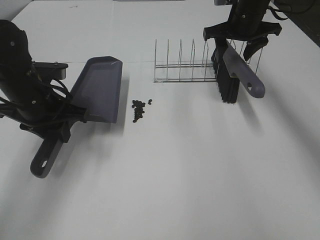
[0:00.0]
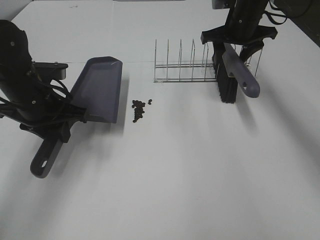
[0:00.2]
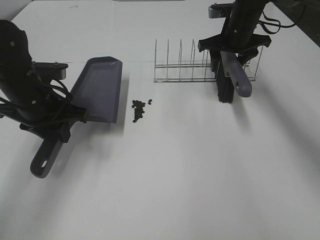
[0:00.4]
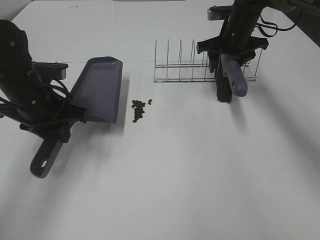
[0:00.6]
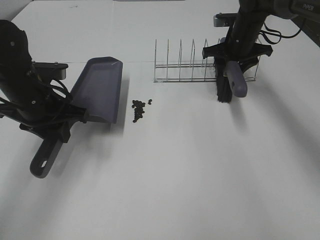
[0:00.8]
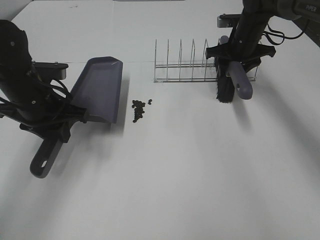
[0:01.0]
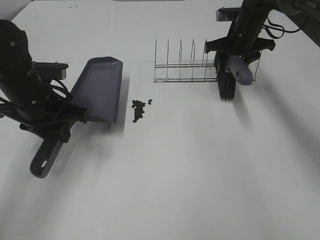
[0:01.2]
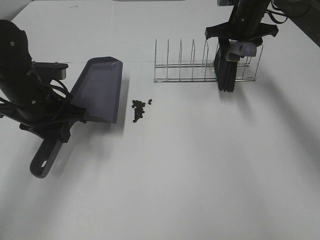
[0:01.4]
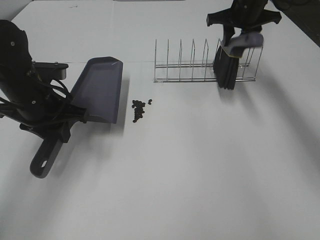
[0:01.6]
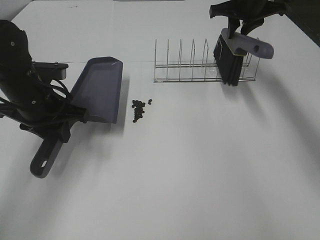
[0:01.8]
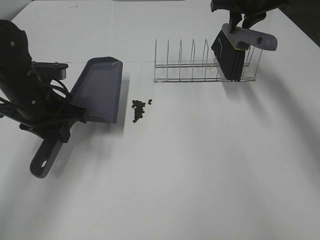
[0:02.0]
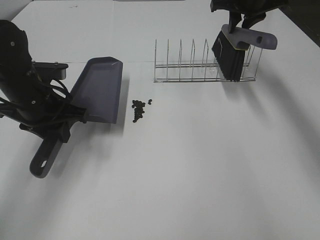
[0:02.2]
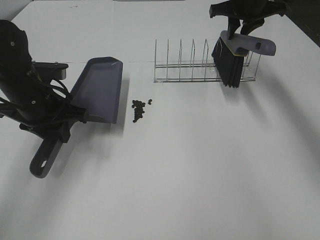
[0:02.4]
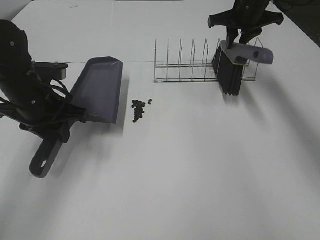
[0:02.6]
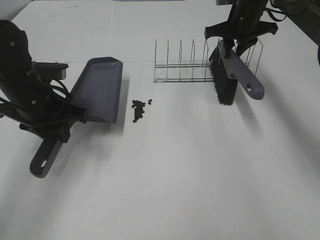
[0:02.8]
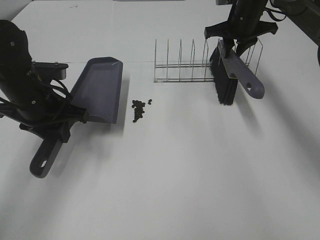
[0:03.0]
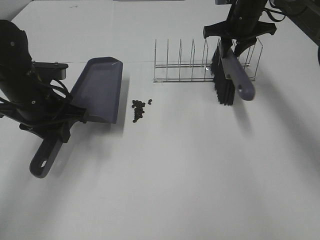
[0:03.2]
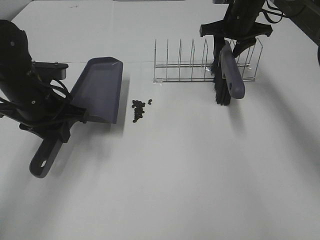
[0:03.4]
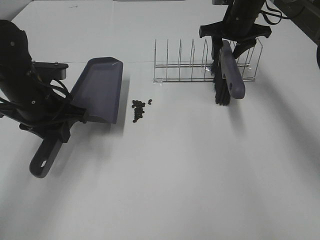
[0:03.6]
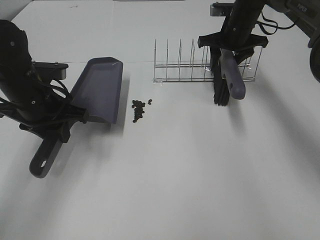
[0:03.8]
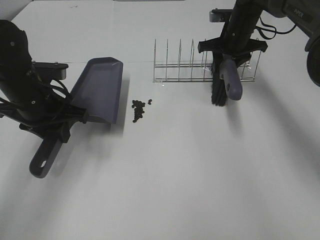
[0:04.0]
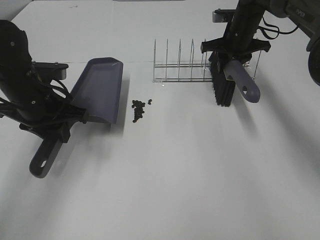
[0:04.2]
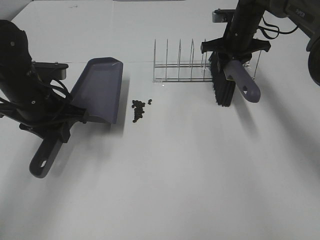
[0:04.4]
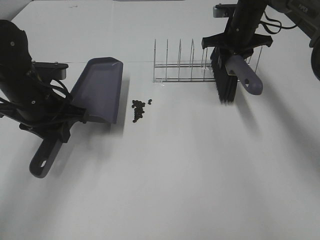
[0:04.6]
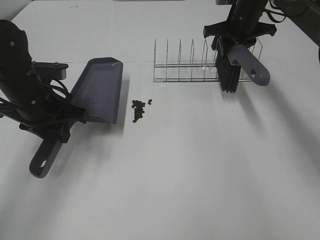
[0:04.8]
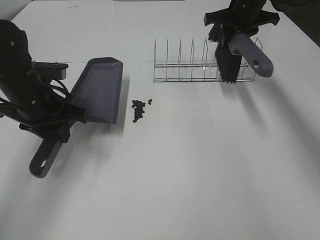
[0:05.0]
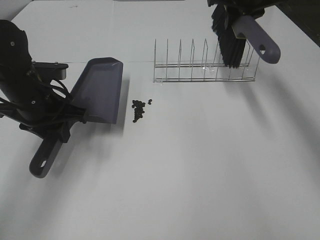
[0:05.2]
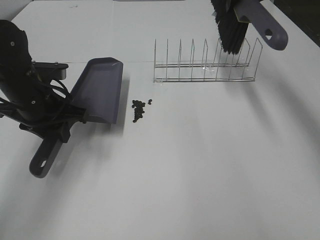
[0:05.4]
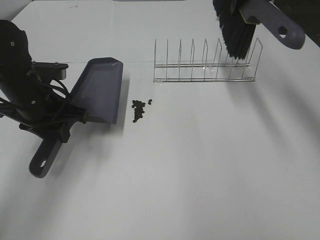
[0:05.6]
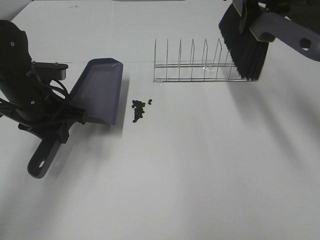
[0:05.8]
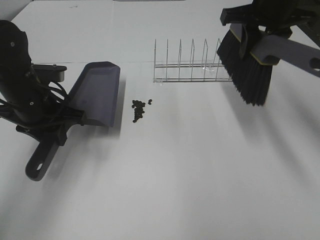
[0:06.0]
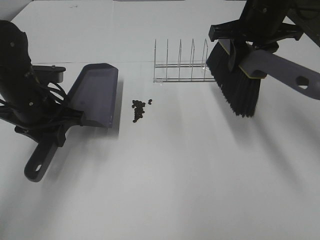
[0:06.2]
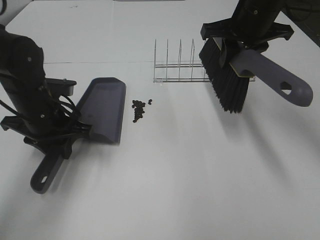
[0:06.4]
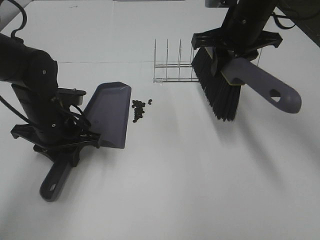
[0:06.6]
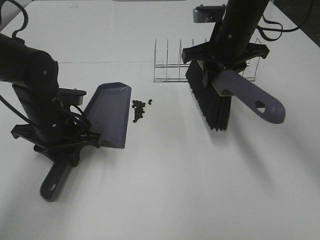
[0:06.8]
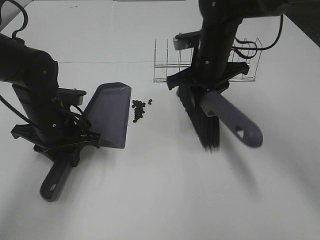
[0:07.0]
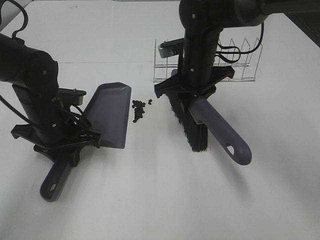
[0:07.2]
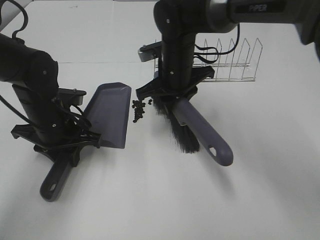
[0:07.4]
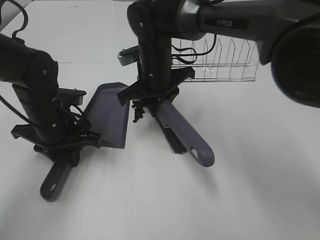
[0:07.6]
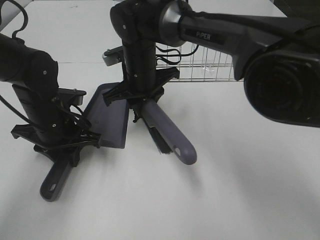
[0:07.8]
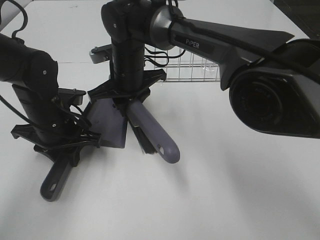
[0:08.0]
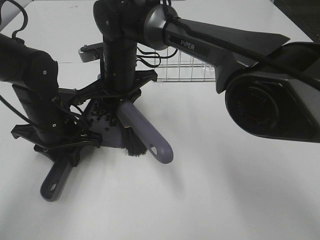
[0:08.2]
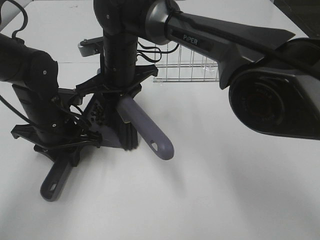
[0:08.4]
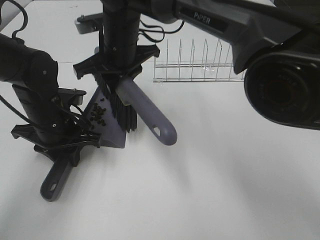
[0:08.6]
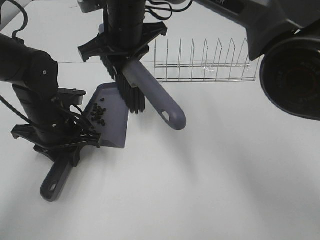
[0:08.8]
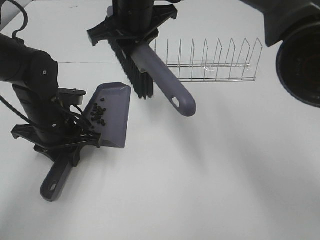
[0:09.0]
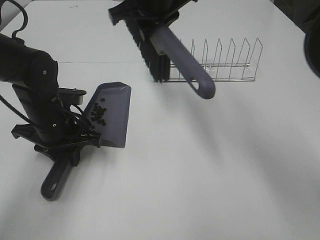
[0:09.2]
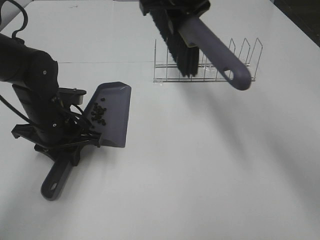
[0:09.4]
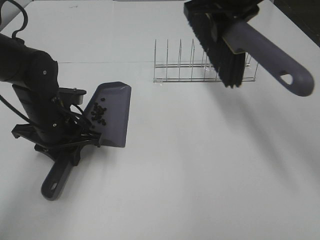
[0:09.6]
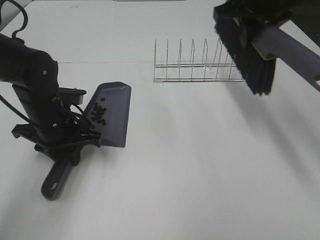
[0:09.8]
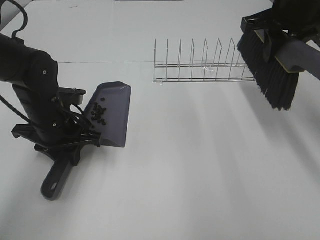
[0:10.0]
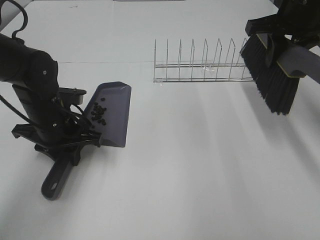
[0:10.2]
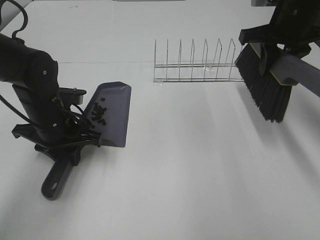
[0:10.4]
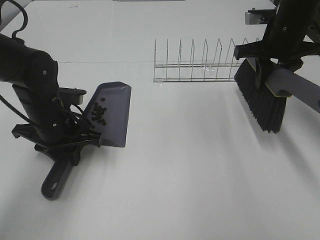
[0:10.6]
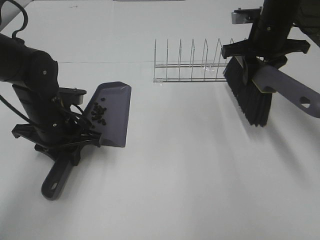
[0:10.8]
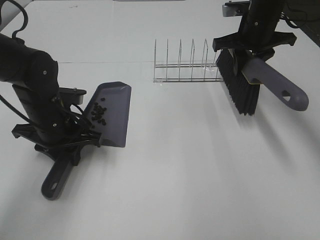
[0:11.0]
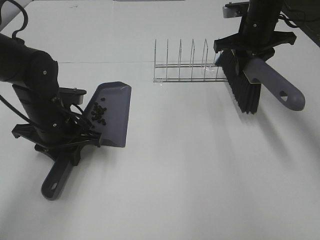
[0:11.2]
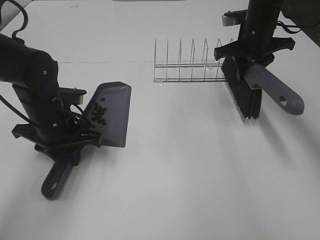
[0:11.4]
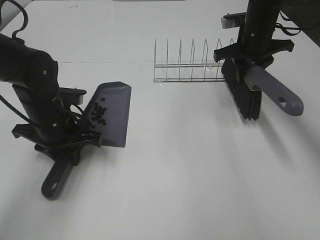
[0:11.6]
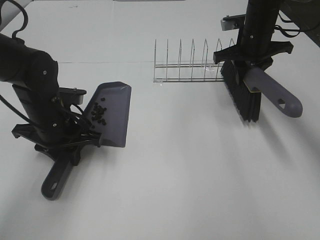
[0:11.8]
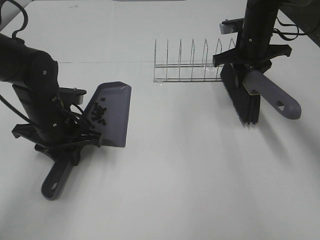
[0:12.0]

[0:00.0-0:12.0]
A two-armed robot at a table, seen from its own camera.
Task of the whole recording: Sweep Coffee Bean.
Step, 0:00.0 to 0:04.2: Right hand:grab the broom.
Step, 0:04.4 to 0:08.6: Right hand:sweep the coffee beans into the dustpan.
0:00.0 to 0:01.6: The right gripper reaches roughly 5 cm downward, then returns, and closes its fingers.
0:01.6 to 0:03.0: There are only small adjustments of the grippers.
0:03.0 to 0:04.4: The right gripper opens, then closes again.
0:04.4 to 0:06.0: The right gripper heads backward and upward, covering about 15 cm.
0:06.0 to 0:07.6: The left gripper shifts by some 5 cm, while the right gripper goes approximately 25 cm to the left and downward.
0:07.6 to 0:09.0: The right gripper moves upward, roughly 10 cm.
0:09.0 to 0:10.4: The right gripper goes some 25 cm to the right.
0:10.4 to 0:12.0: The right gripper moves downward and forward, some 10 cm.

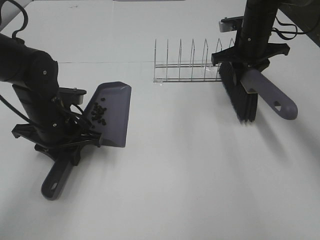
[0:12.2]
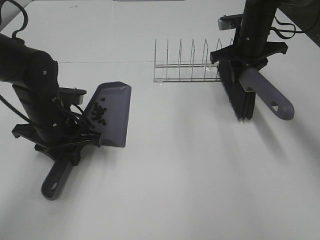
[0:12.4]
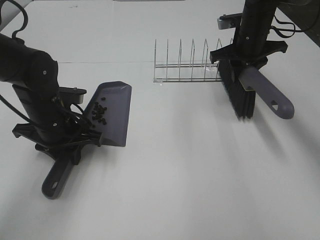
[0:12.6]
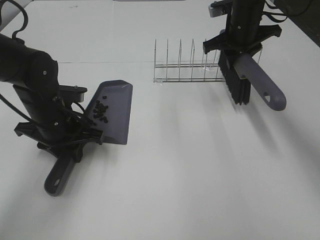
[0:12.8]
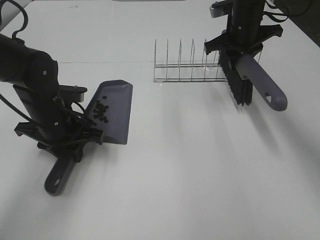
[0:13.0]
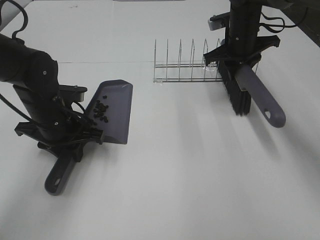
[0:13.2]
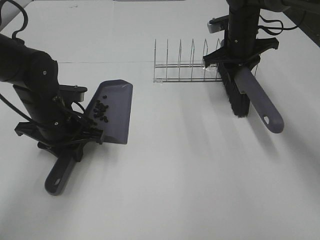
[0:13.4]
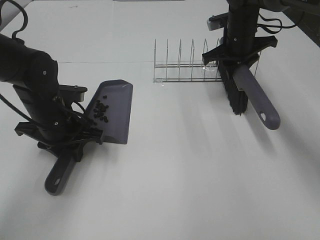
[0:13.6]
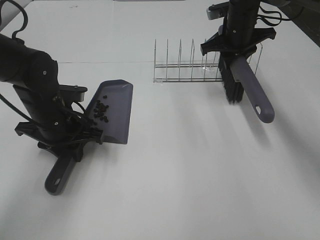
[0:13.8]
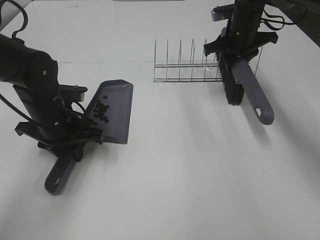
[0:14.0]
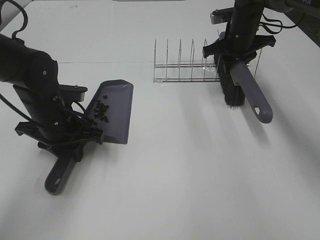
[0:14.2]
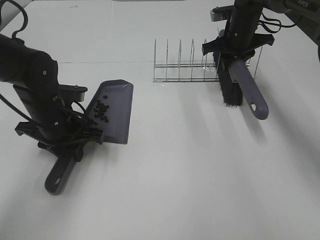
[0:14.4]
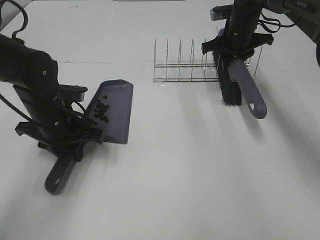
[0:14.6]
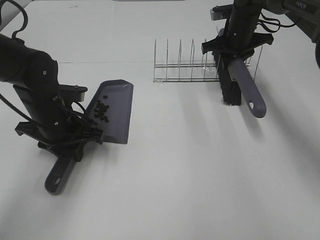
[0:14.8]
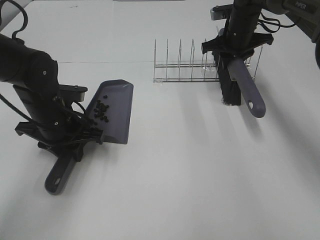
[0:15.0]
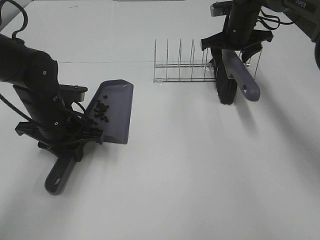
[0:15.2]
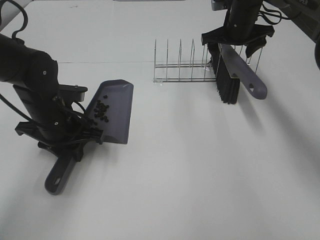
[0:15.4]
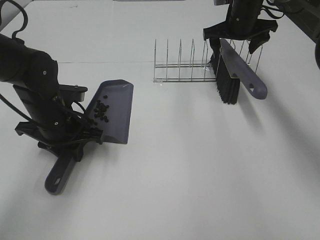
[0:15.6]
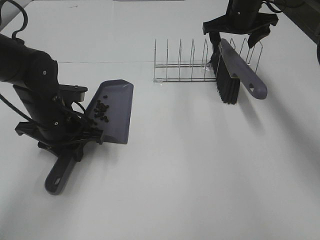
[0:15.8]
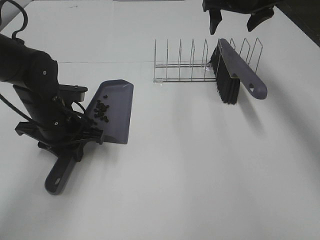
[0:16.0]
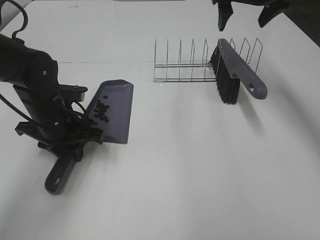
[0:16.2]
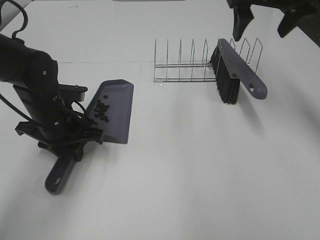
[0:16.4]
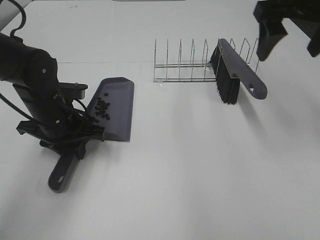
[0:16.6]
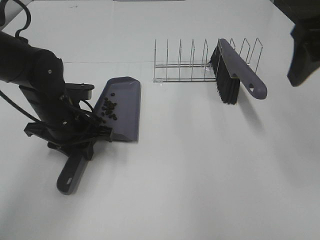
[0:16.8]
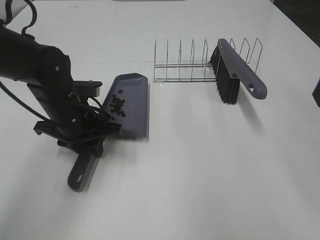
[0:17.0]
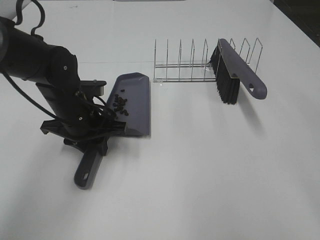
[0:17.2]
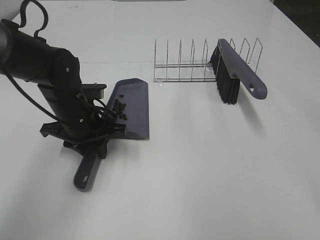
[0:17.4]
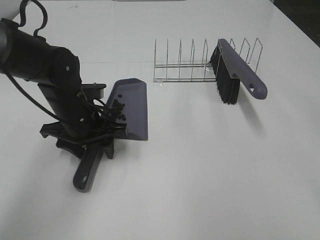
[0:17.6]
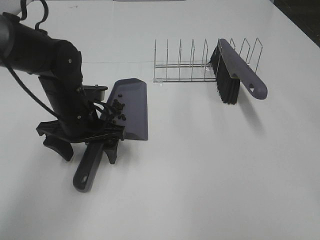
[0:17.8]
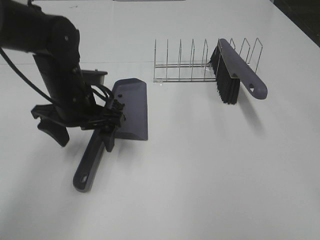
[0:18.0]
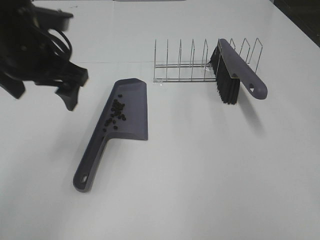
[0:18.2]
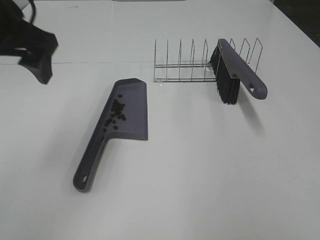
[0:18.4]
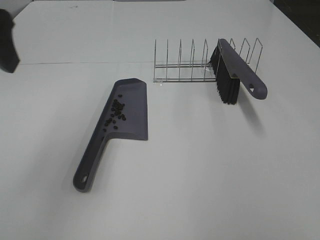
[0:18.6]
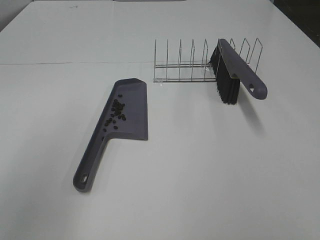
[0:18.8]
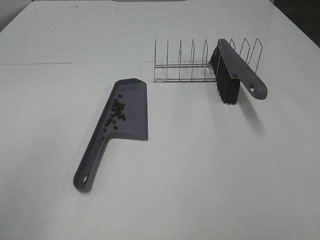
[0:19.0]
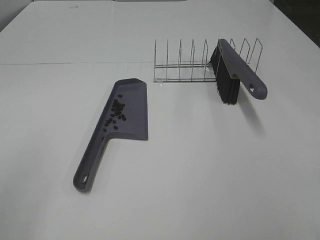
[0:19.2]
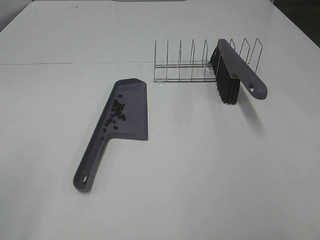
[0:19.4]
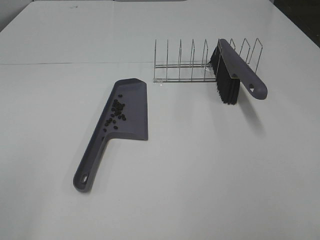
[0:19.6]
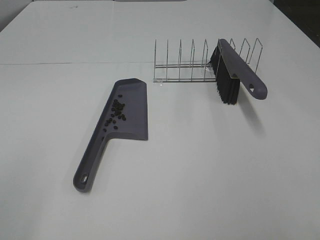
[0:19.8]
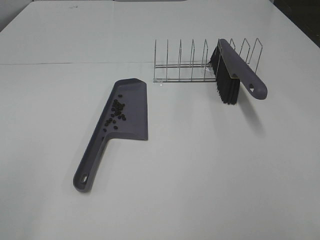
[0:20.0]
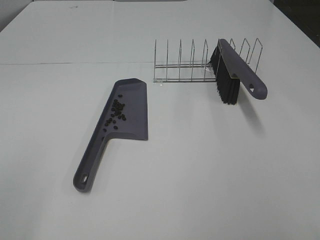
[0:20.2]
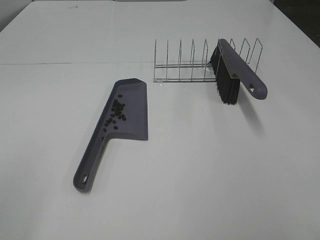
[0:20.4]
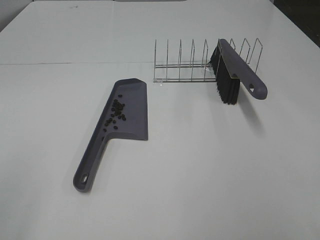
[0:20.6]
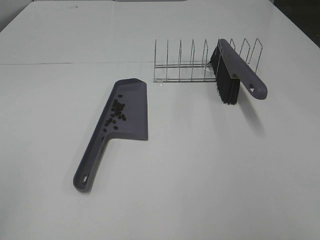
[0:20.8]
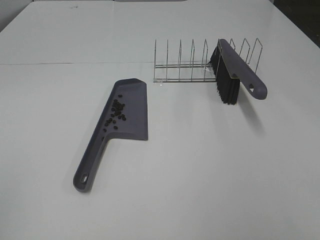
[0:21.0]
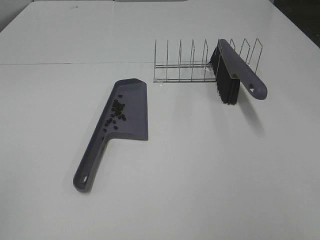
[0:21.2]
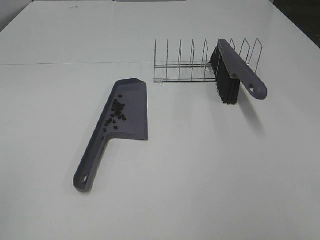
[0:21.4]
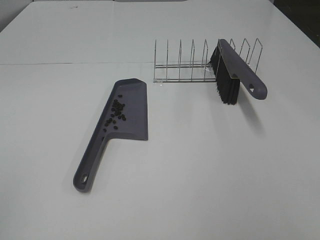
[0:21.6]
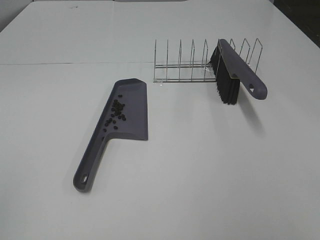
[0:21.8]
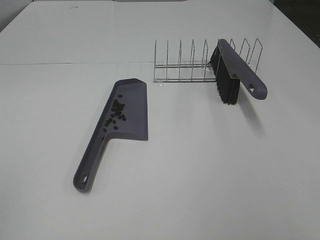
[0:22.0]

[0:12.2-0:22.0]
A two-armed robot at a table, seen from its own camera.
Task of the whole recording: Sweep Coffee Bean.
Step, 0:12.2 to 0:15.2: Right hand:place the broom on the rack.
0:12.2 to 0:15.0: There are only small adjustments of the grippers.
0:15.0 to 0:16.4: The right gripper moves upward and backward, about 20 cm, and opens up.
0:16.4 to 0:17.8: The left gripper opens up. The right gripper heads backward, covering about 30 cm.
0:17.8 to 0:19.2: The right gripper is displaced downward and backward by roughly 10 cm, while the left gripper goes about 35 cm backward, upward and to the left.
